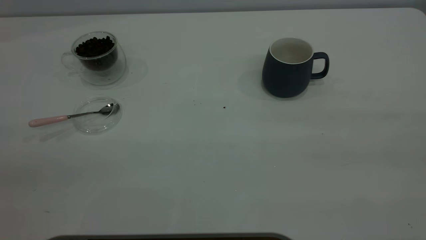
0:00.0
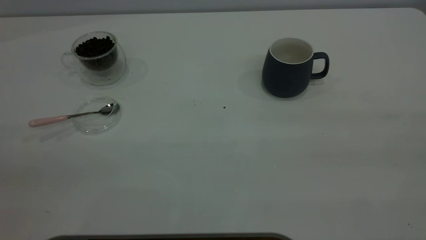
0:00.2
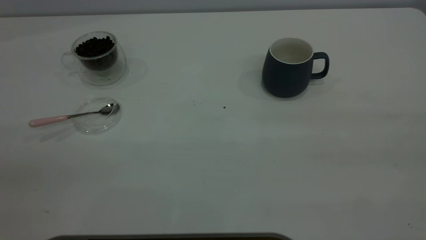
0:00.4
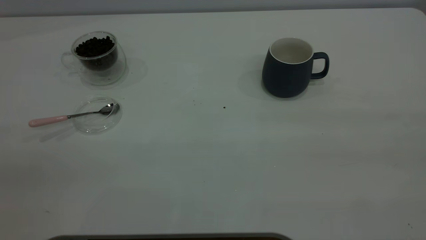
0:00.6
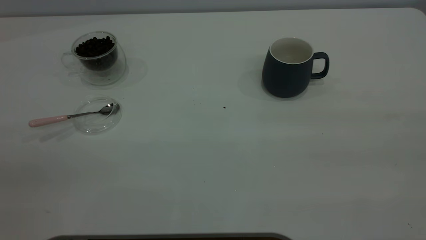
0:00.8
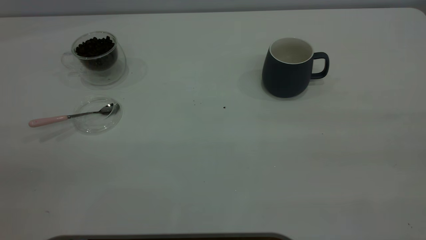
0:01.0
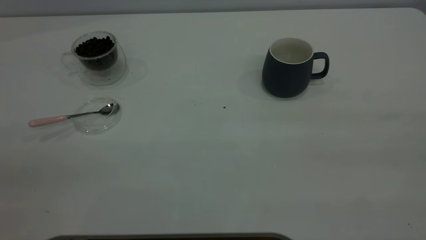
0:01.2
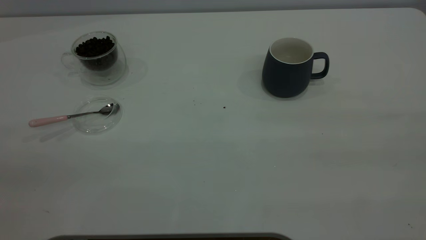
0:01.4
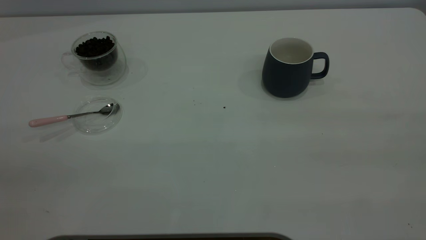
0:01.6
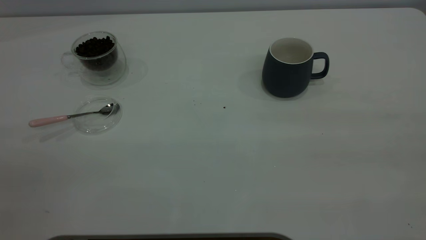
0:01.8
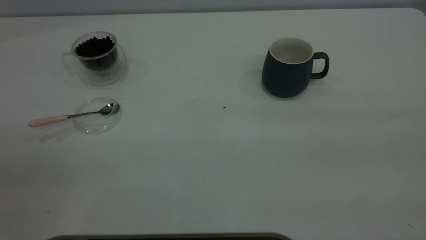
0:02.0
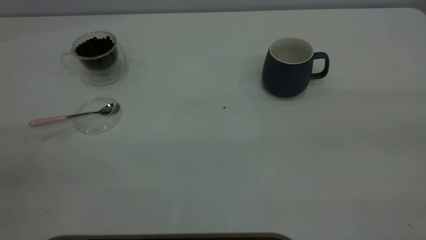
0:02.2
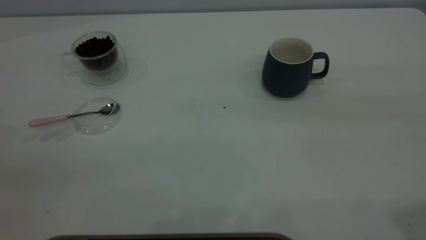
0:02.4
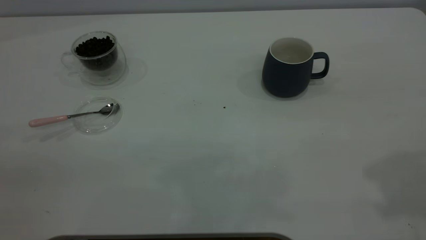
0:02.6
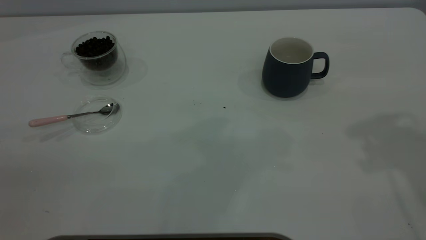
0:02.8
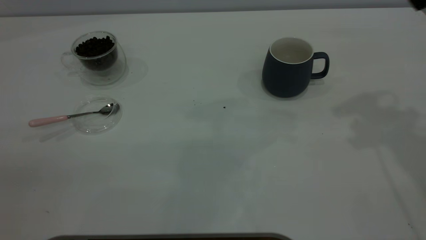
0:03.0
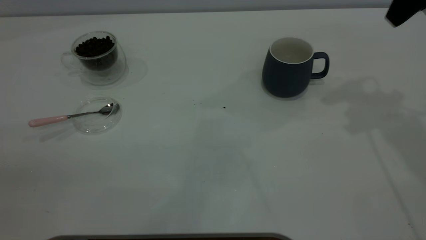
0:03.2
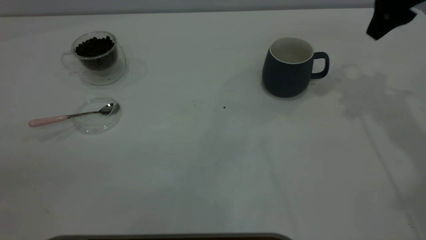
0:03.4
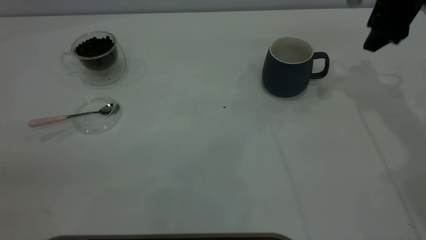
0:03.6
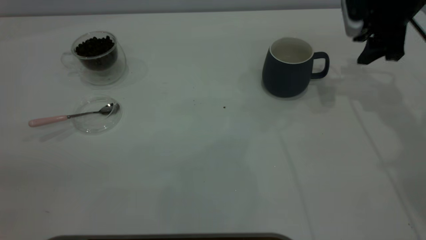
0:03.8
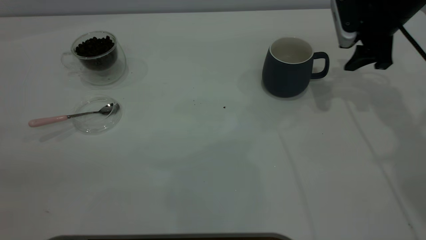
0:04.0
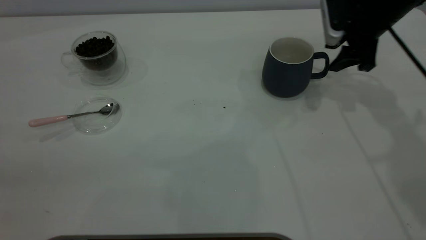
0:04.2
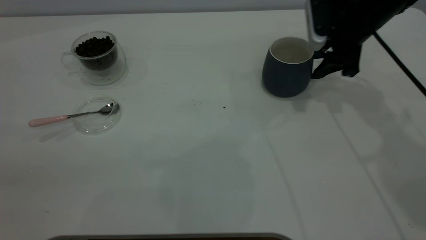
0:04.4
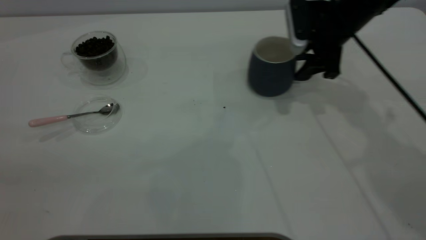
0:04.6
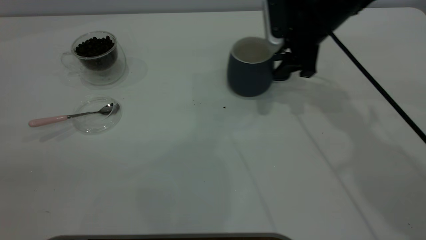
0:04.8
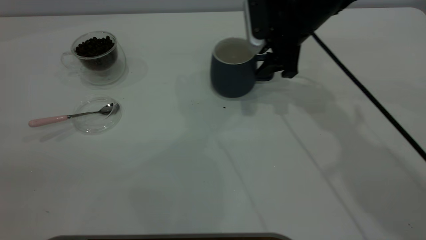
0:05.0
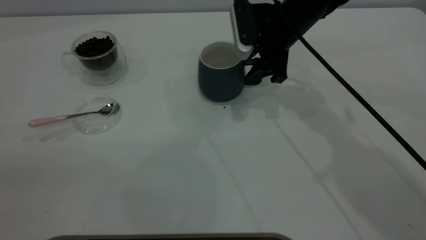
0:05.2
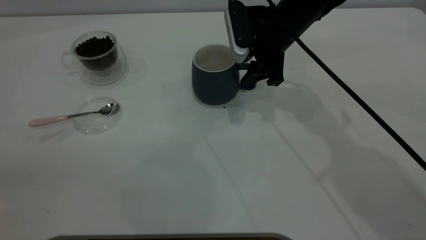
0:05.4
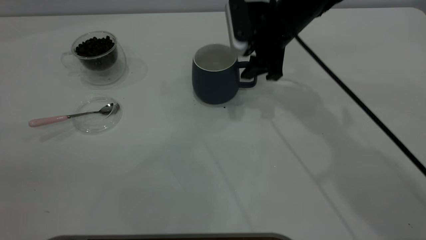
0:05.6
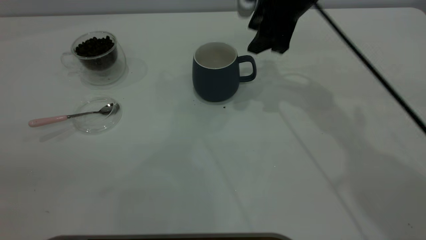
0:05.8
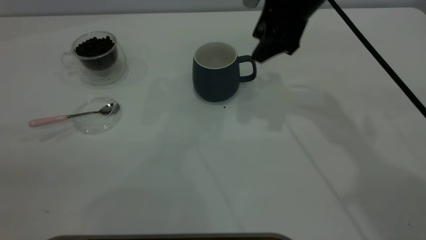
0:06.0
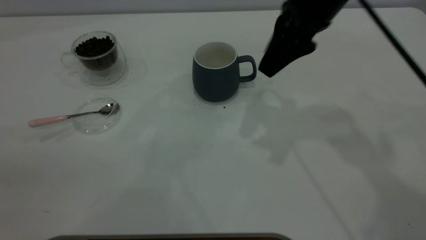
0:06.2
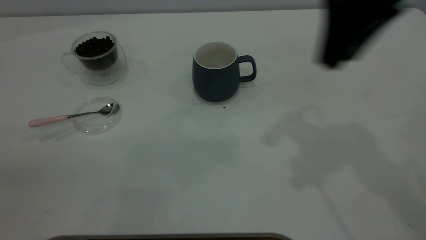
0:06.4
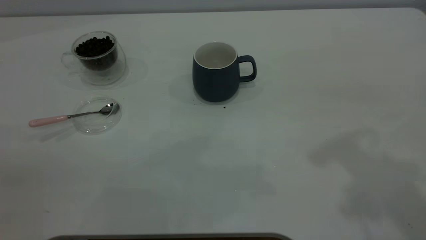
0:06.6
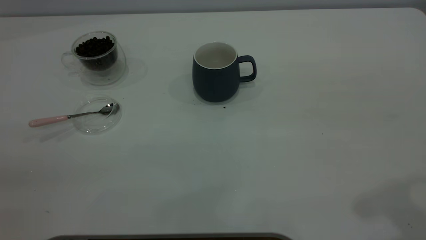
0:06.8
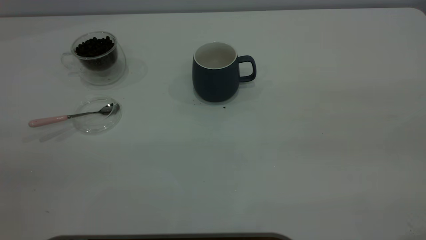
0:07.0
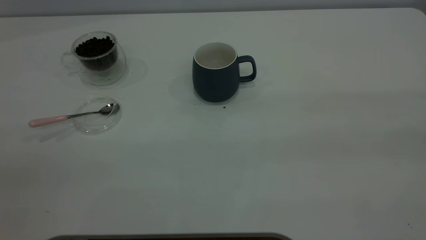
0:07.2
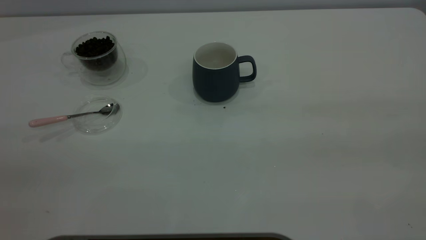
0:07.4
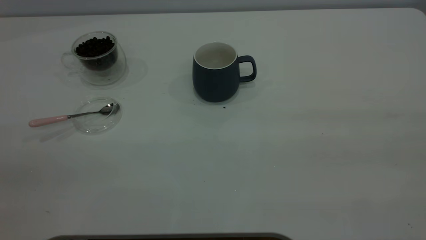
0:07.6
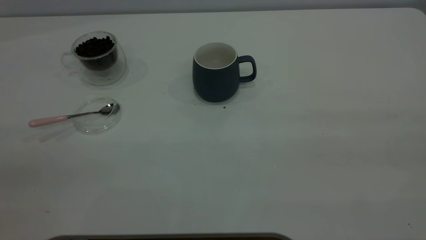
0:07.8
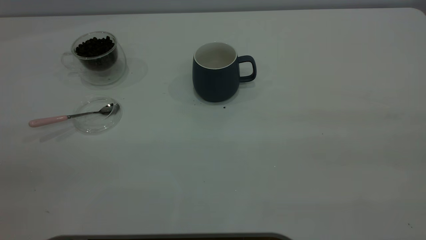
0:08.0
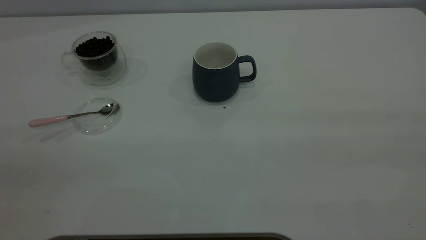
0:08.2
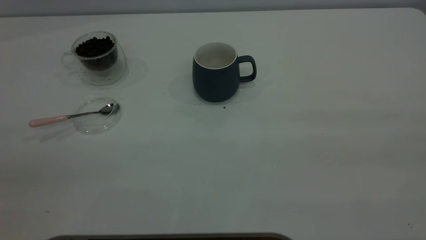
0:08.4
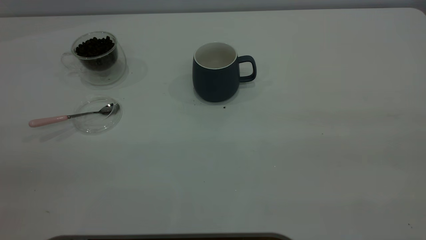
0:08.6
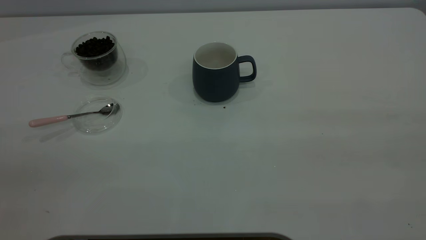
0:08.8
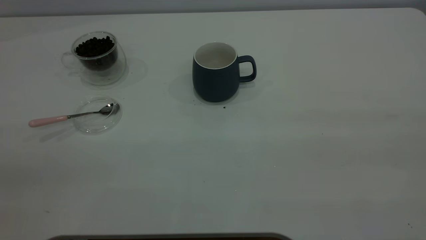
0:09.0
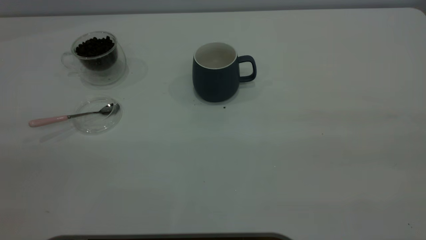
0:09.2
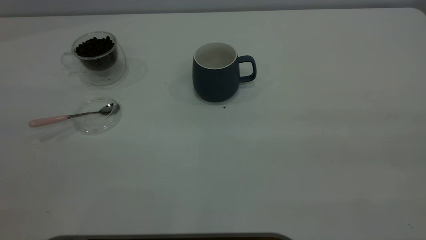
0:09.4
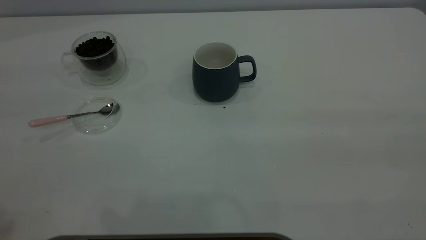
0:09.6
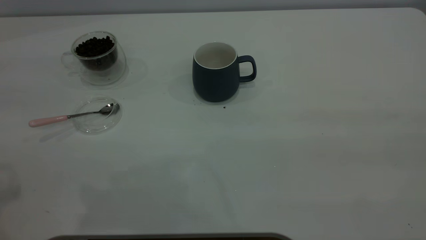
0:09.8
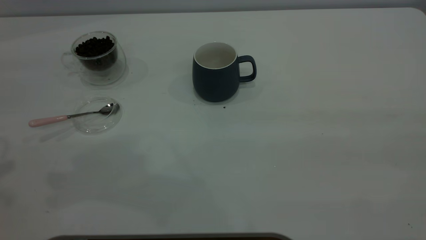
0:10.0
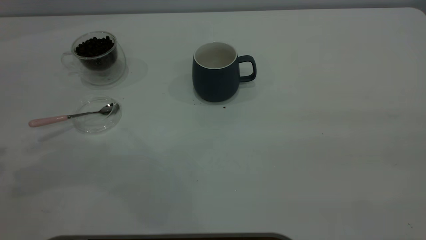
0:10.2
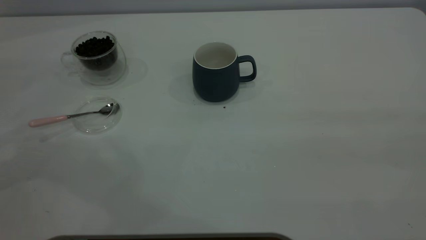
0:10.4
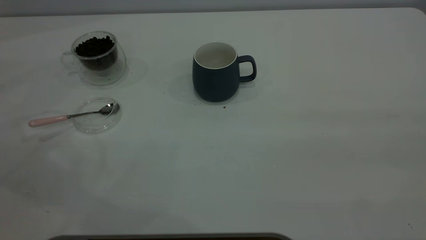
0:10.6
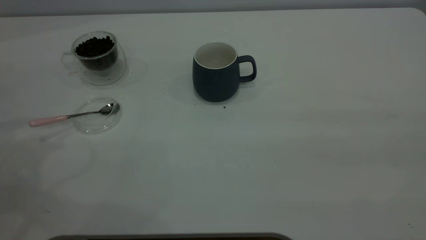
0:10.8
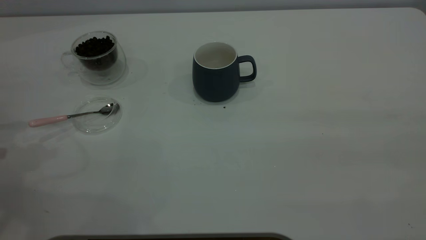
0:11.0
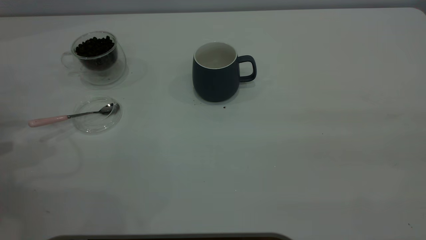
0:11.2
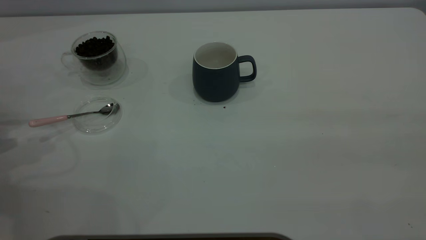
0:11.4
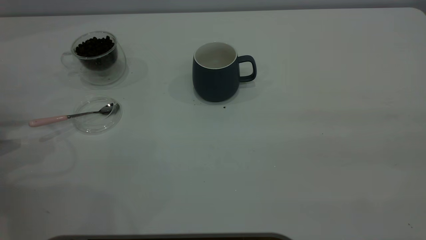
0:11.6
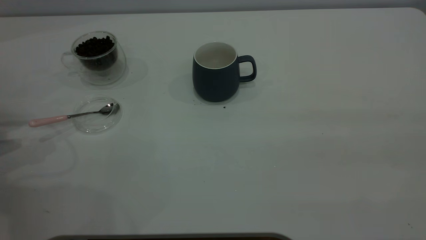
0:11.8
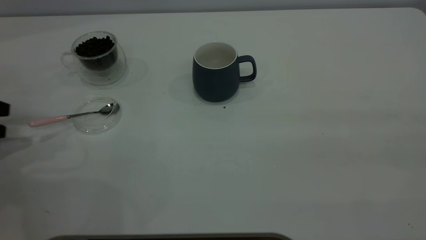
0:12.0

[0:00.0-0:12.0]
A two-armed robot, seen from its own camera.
Task of the whole recording: the right gripper place the grey cup in the center of the table, the left gripper take the pink spoon from the cup lid and scoop out the coffee beans from the coffee cup and put them into the grey cup, the left gripper put the spoon back into the cup lid.
Step, 0:00.0 to 0:06.2: Move the cup to the center of view.
0:00.0 to 0:01.6: The two grippers keep their place.
0:03.0 to 0:04.4: The right gripper is displaced downward and forward by some 20 cm.
0:04.4 to 0:06.0: The right gripper goes some 10 cm to the left and upward.
0:06.0 to 0:07.6: The right gripper moves backward, to the right and upward, about 50 cm.
0:07.6 to 0:09.0: Both grippers stay put.
0:10.4 to 0:12.0: The left gripper goes some 10 cm downward.

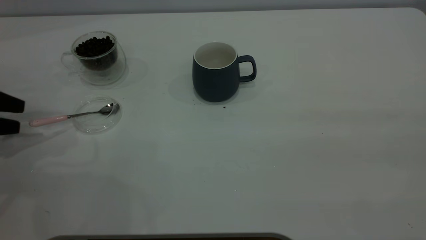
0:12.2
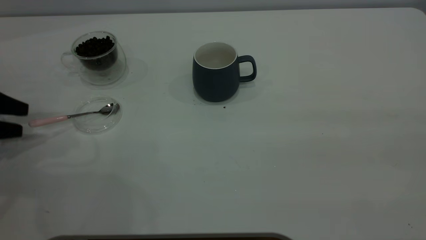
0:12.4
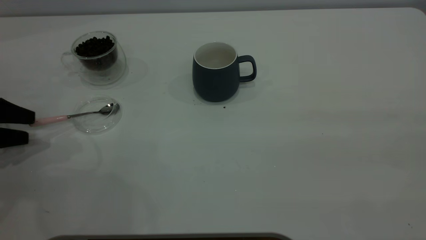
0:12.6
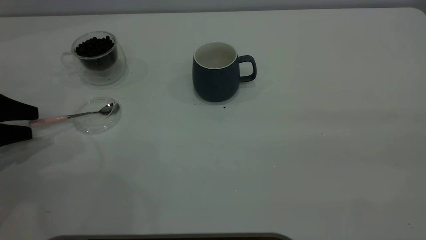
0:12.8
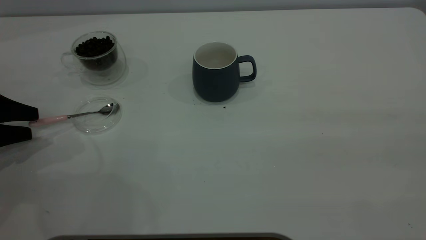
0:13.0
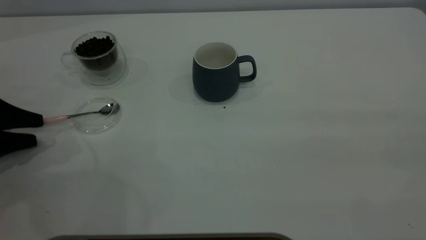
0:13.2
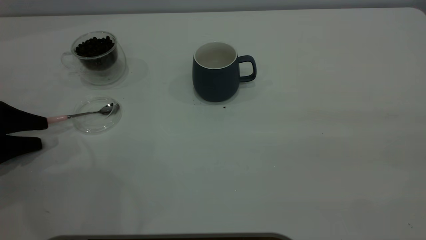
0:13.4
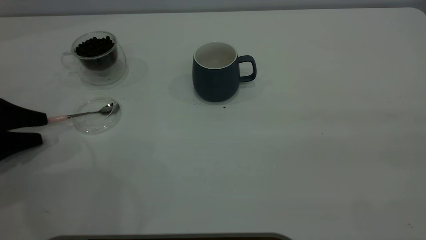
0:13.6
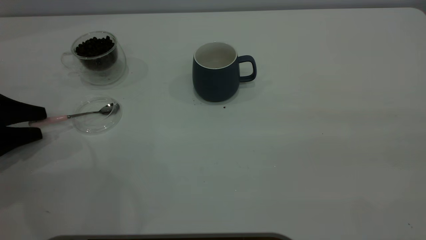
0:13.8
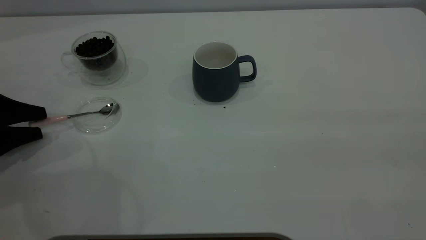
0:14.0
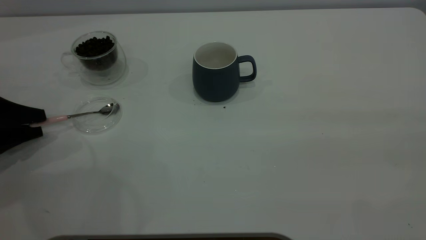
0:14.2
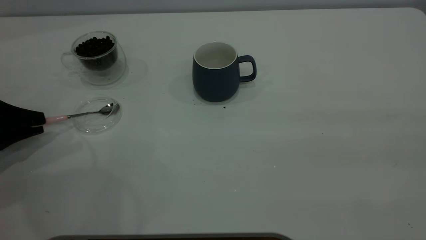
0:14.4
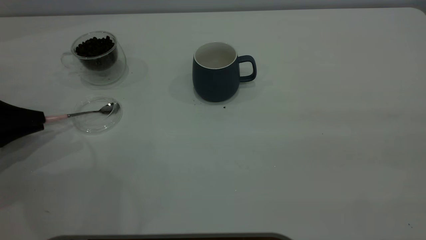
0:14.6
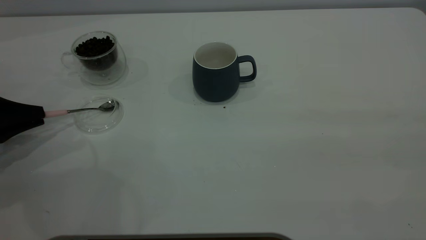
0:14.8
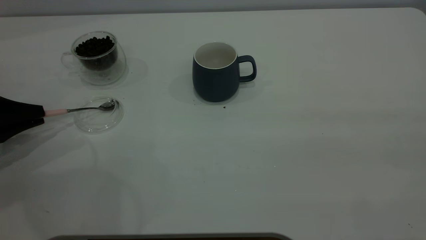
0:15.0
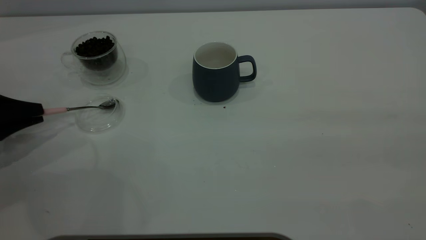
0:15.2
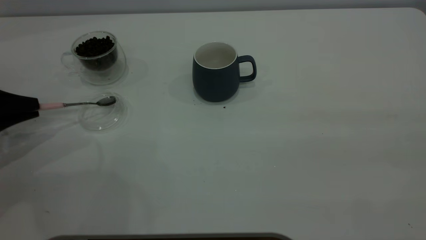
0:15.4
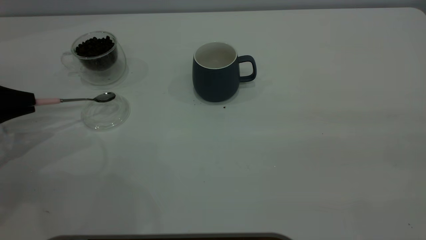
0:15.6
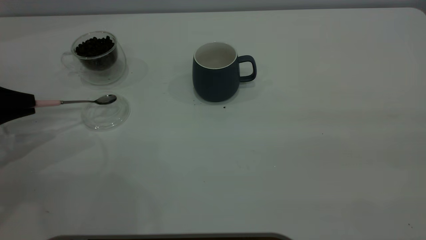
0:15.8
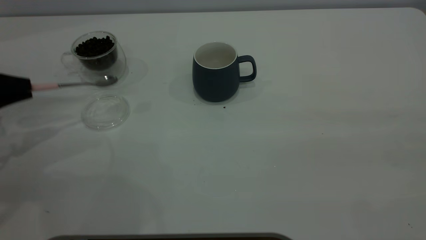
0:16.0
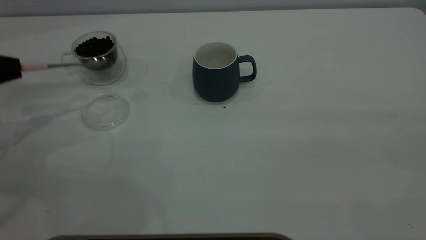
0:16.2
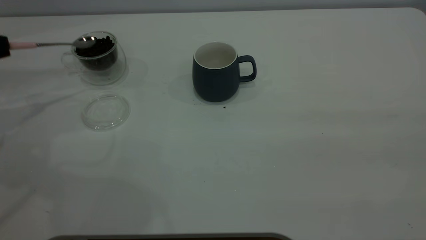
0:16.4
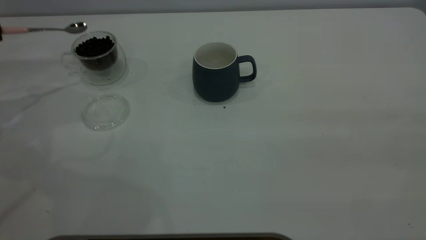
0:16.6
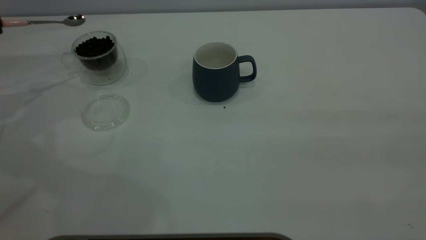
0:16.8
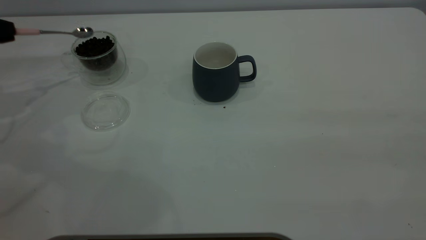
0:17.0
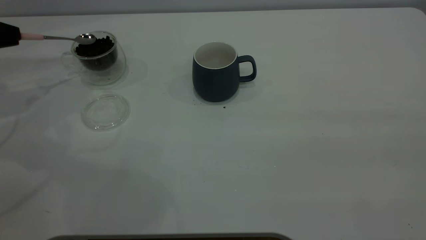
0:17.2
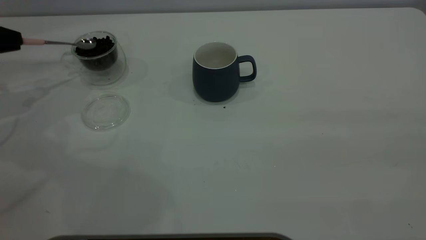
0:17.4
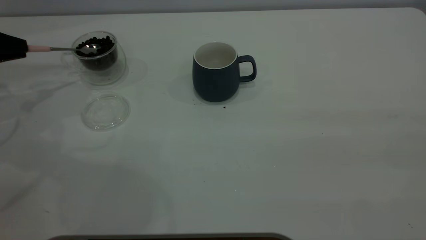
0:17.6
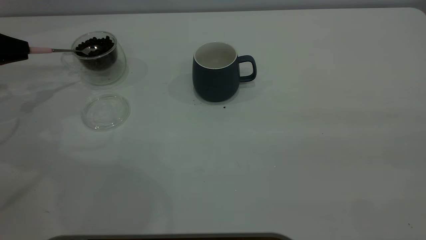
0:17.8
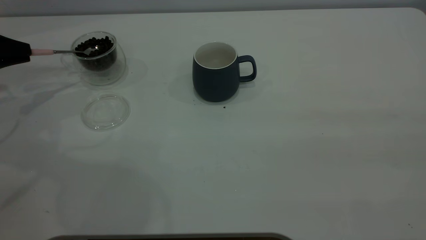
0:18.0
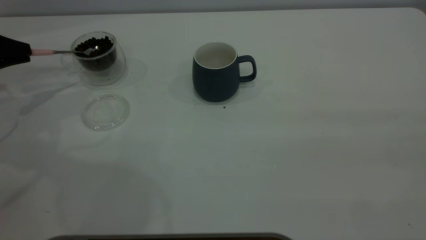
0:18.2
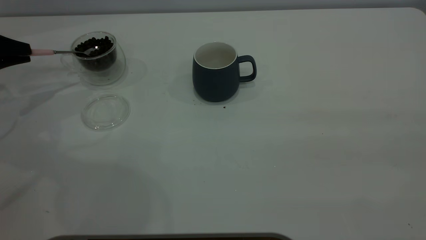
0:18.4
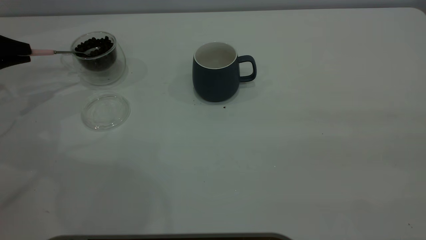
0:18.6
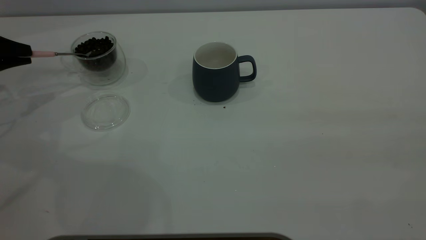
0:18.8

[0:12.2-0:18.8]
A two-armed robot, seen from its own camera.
Task of the whole recording: the right gripper place the grey cup in the center of the table, the left gripper take the pink spoon from the cup lid and scoop out the coffee beans from the coffee cup and put them into the grey cup, the left gripper put the spoon back into the cup lid.
Step, 0:12.2 to 0:16.0: Pick up the spoon.
0:12.2 to 0:13.8: The left gripper shifts by approximately 5 cm.
0:13.8 to 0:15.4: The left gripper closes.
0:15.4 to 0:17.2: The left gripper shifts approximately 10 cm forward and upward.
